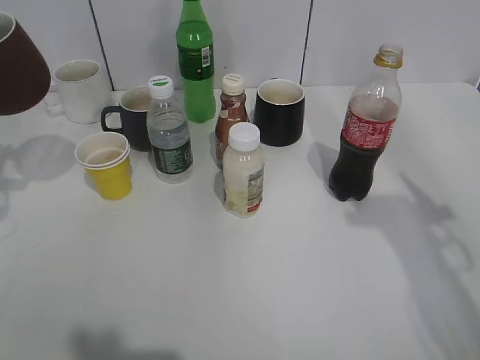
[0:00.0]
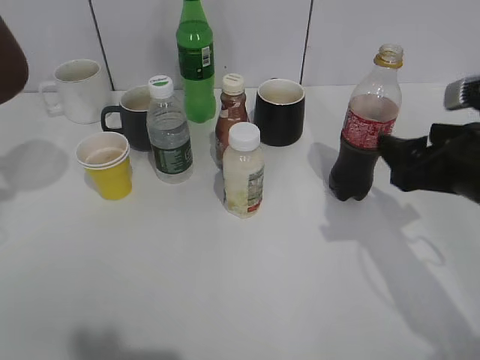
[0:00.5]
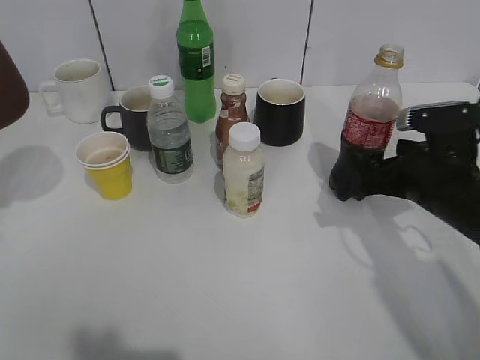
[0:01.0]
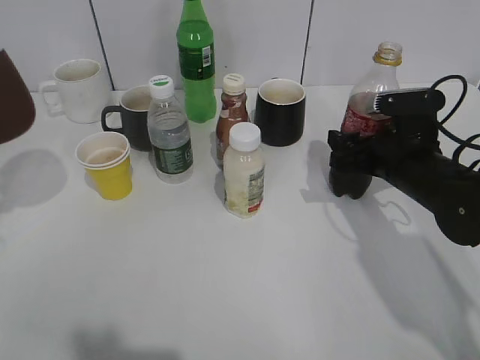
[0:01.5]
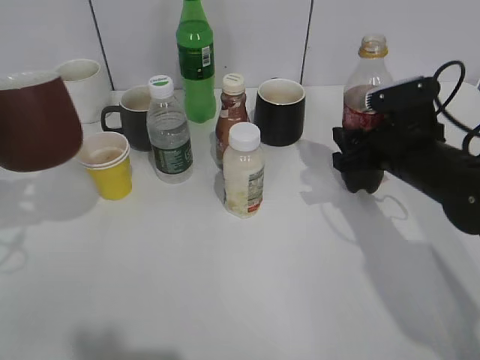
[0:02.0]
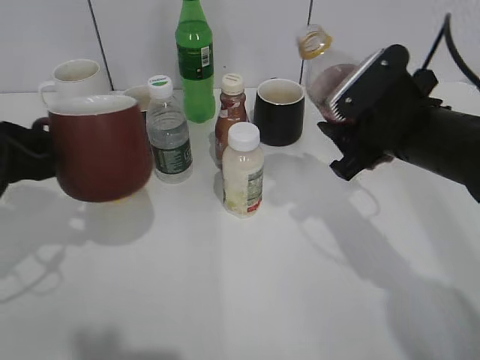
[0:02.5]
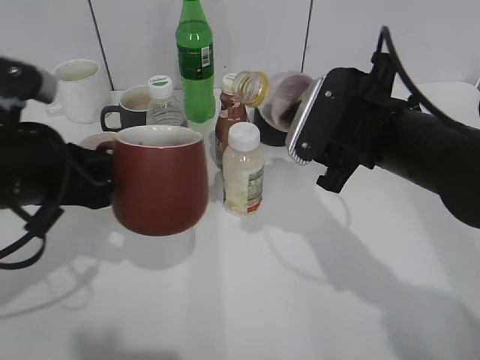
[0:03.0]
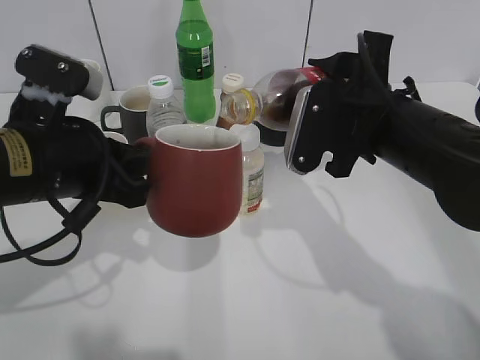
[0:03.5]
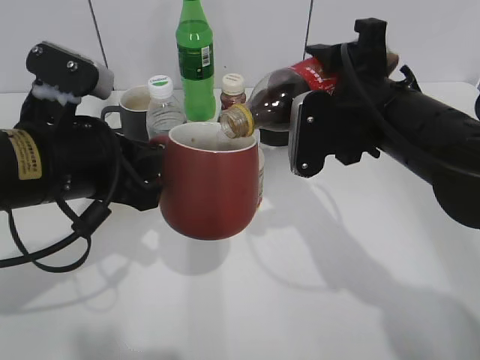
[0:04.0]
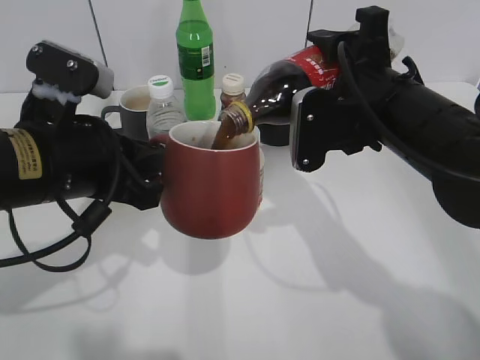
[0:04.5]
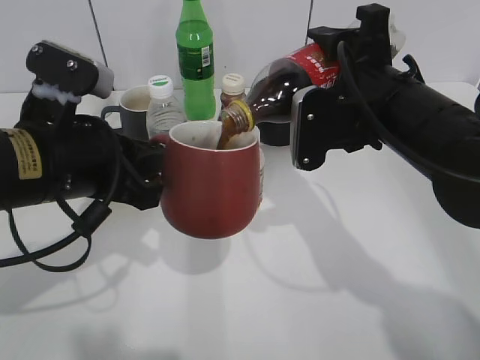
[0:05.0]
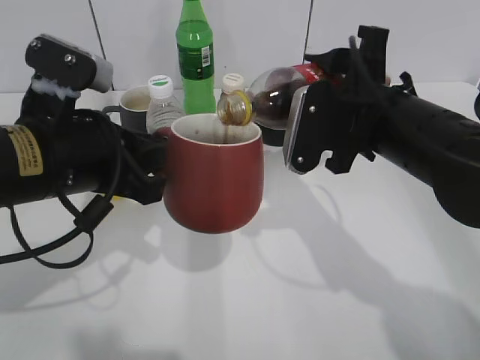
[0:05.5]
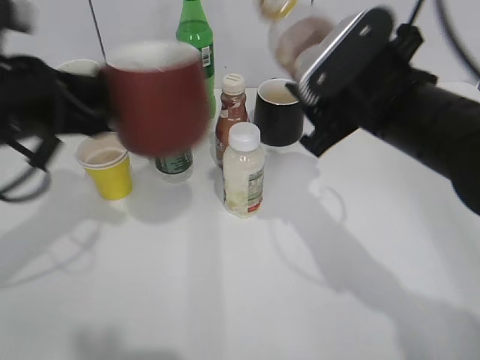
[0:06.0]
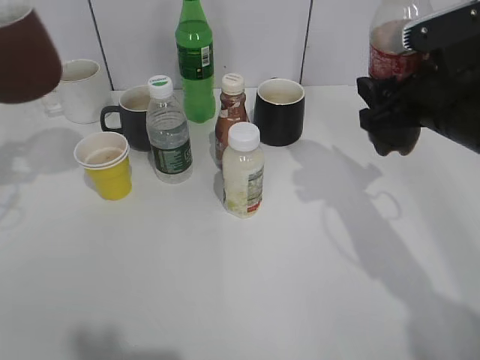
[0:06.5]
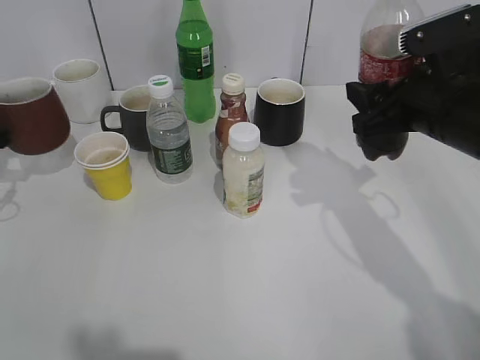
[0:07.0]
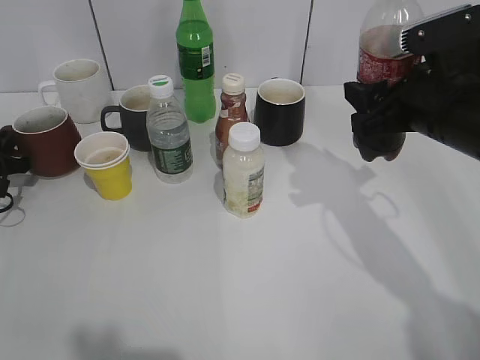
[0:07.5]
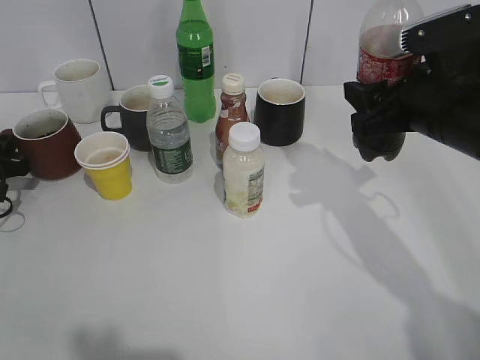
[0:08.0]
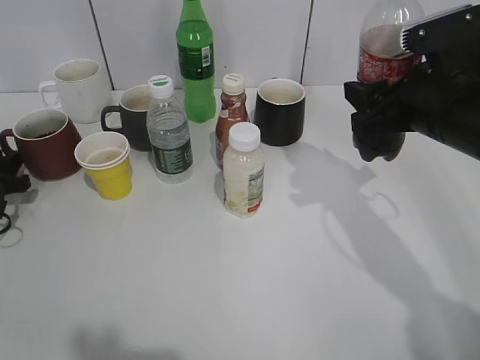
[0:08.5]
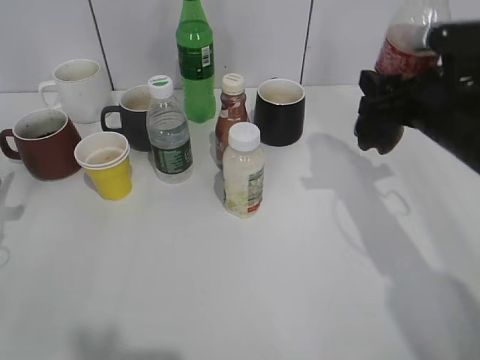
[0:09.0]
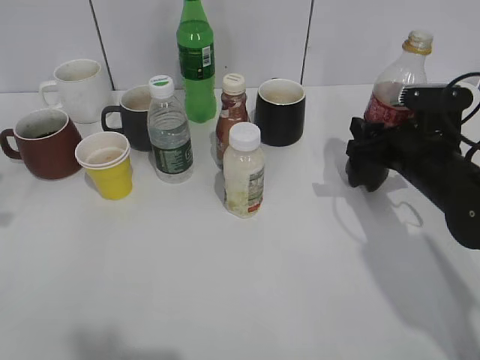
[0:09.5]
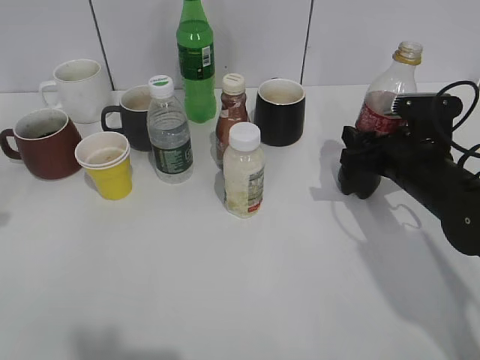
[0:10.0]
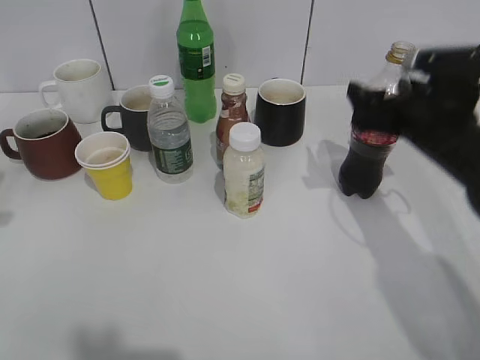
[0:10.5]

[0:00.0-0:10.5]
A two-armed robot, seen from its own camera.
Step, 0:00.0 to 0:01.5: Grasp the bottle with cola with right gripper.
Step, 0:02.0 to 0:05.5: Pour the cola from bottle to cup with right gripper.
0:00.0 to 0:02.0: The right gripper goes some 25 cm downward, forward and to the left, and closes, while the left gripper is displaced backward by approximately 5 cm.
0:02.0 to 0:04.0: The left gripper travels to the right by some 15 cm, while the right gripper heads upward and to the left, covering approximately 10 cm.
0:04.0 to 0:06.5: The right gripper travels to the right by roughly 5 cm. Meanwhile the left gripper goes approximately 20 cm to the left and forward.
0:06.5 to 0:08.5: The left gripper is displaced downward by roughly 20 cm, and opens its fingers.
0:08.5 to 0:10.5: The right gripper shifts about 5 cm downward, and opens its fingers. The left gripper goes about 20 cm upward and backward.

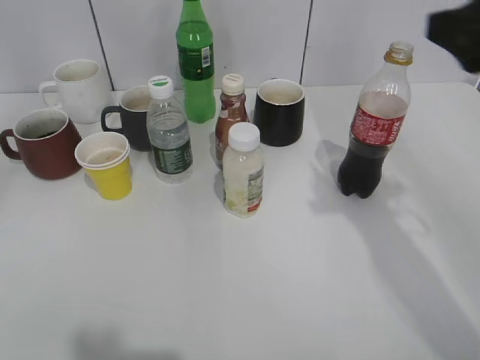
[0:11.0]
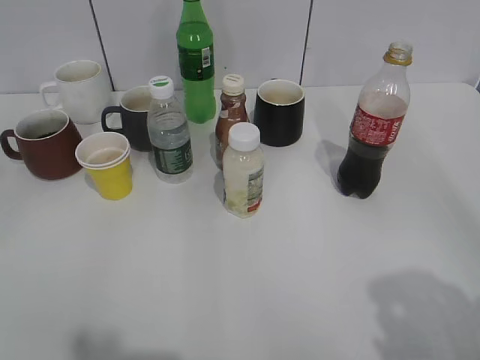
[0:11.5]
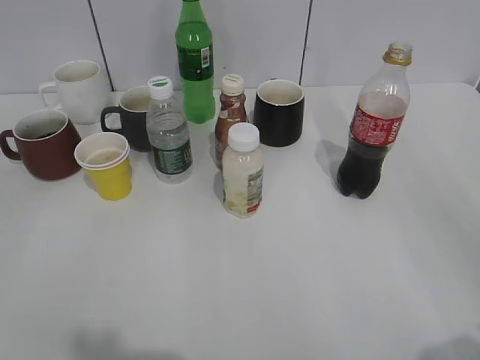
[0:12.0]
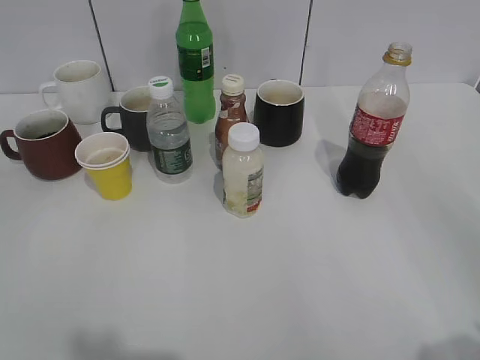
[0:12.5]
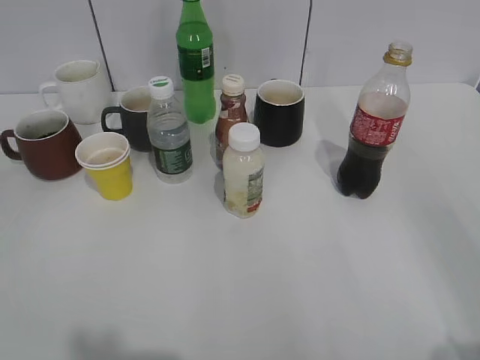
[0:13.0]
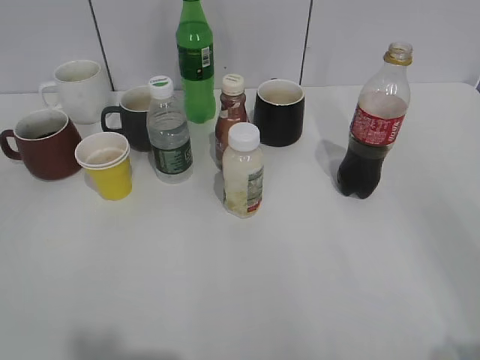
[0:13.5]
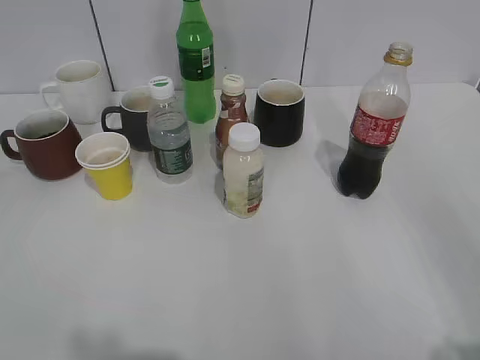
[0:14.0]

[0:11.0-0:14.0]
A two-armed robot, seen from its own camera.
0:11.0 to 0:12.5: The right gripper goes some 25 cm backward. The left gripper moves backward, about 15 cm.
